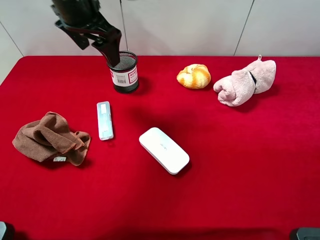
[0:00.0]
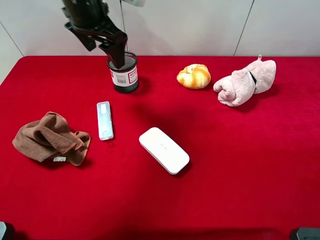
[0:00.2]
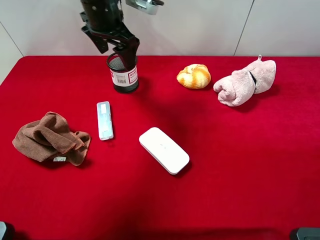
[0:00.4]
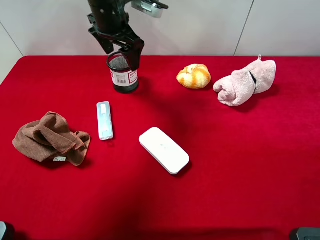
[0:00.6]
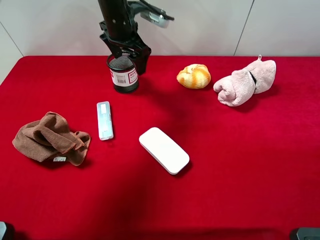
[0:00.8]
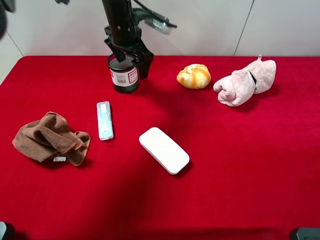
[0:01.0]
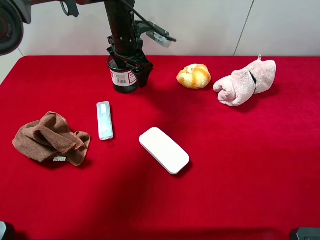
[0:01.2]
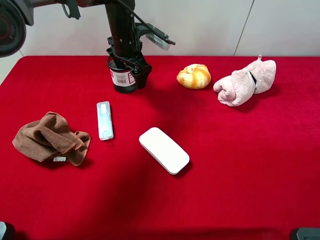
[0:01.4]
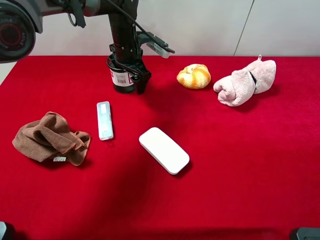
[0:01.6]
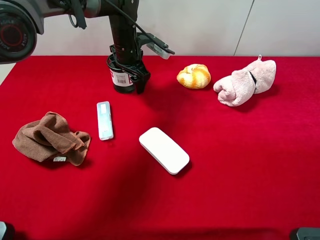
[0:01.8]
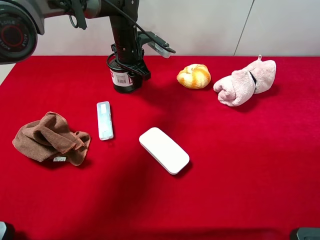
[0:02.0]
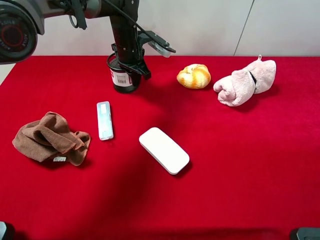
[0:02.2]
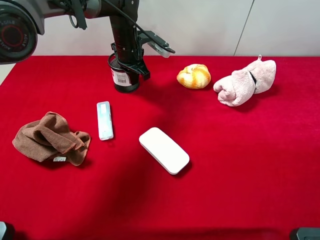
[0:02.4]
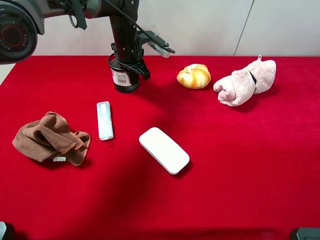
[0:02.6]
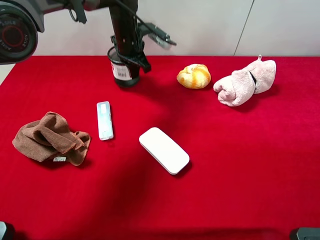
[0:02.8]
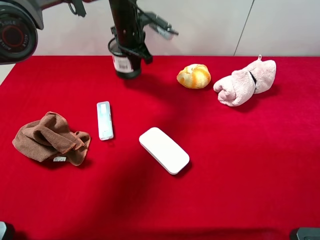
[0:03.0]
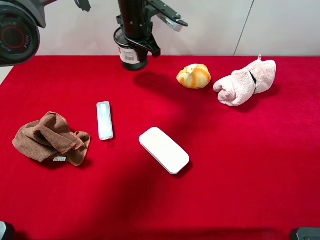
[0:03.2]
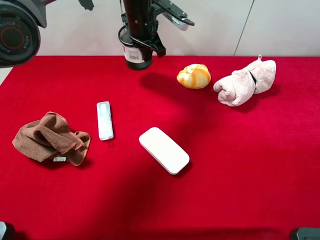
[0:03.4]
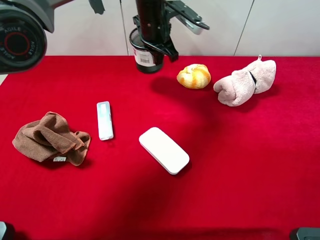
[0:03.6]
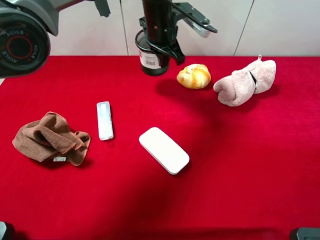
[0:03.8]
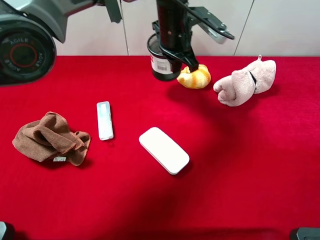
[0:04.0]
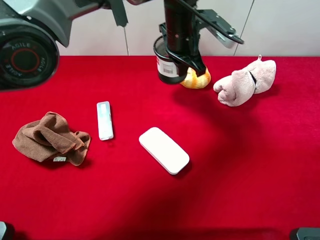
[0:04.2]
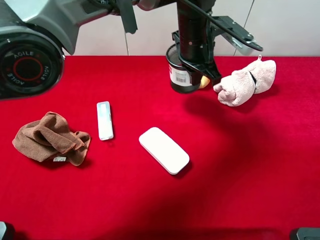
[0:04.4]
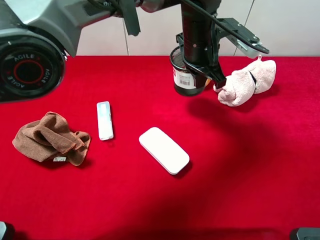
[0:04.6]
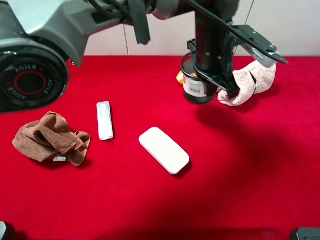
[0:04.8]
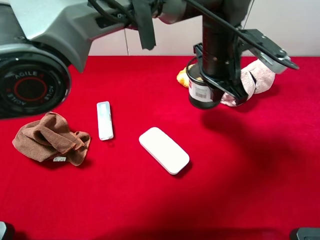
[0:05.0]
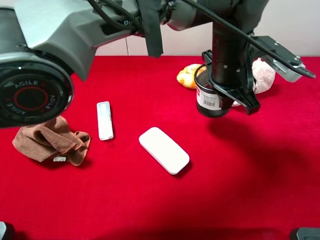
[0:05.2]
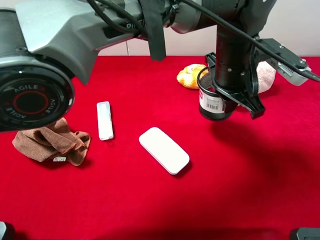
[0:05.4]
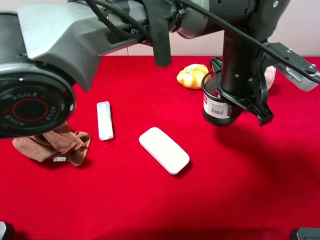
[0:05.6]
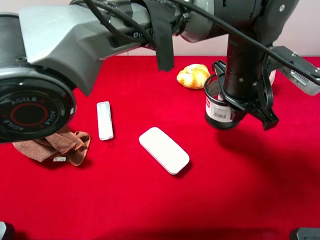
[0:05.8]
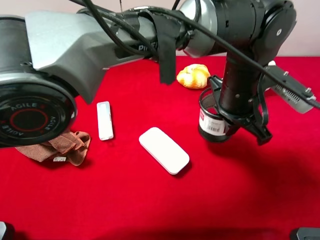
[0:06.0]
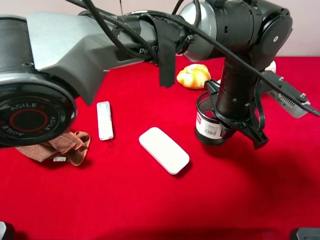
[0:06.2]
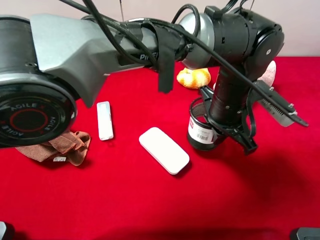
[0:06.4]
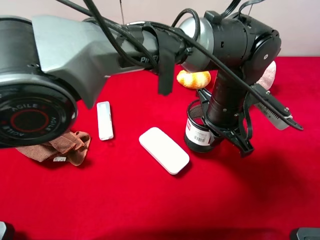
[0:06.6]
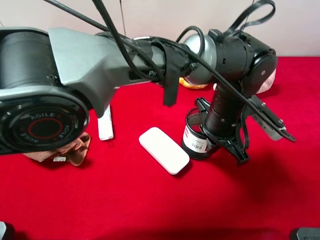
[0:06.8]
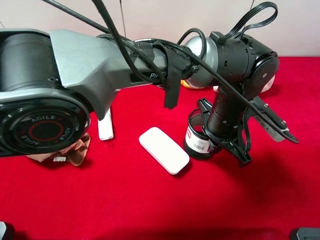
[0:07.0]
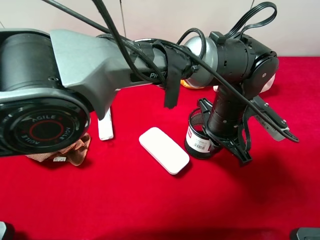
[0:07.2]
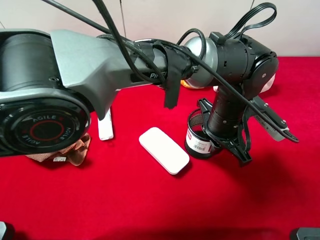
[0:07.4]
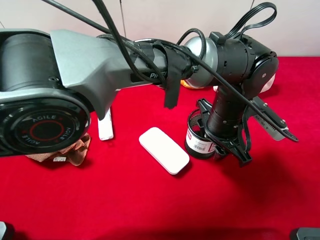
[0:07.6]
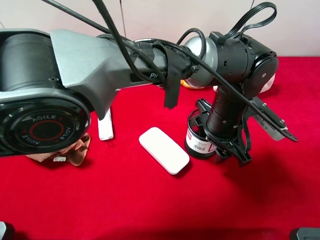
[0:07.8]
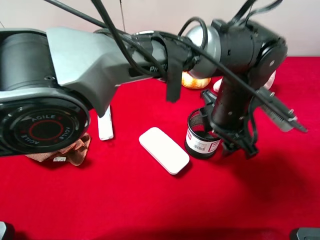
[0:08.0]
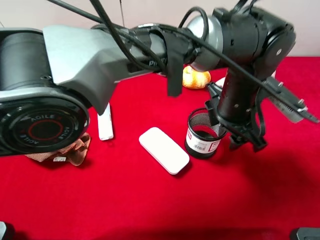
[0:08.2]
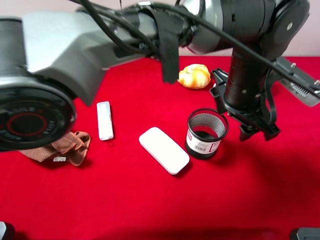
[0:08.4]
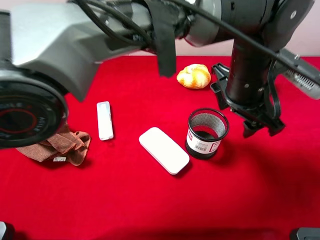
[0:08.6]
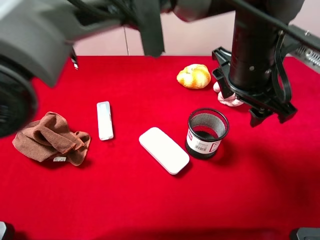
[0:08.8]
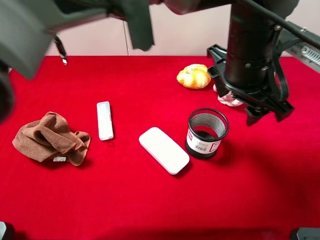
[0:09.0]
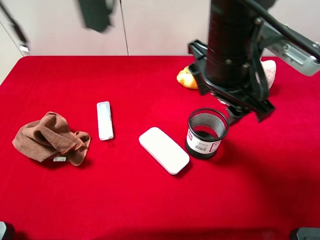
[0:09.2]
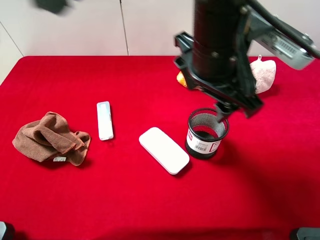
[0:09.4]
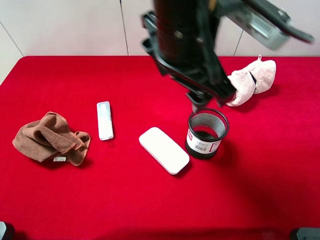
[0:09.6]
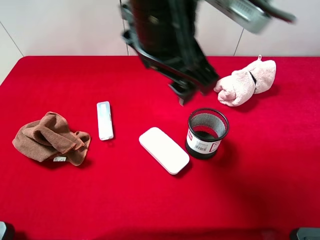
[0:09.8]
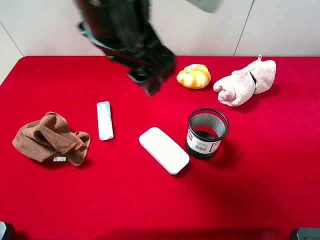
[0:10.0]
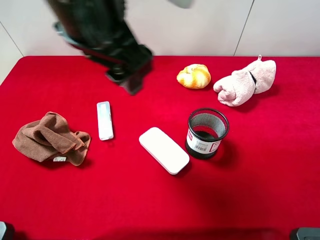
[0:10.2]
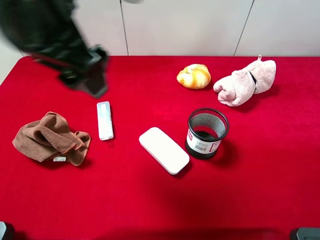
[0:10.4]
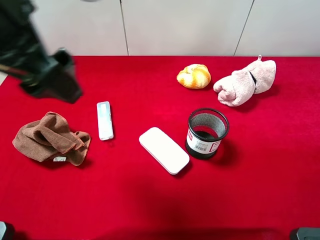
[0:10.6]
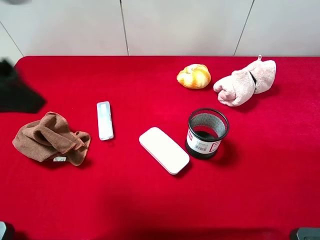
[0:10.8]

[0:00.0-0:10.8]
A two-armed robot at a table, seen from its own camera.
Task of the whole recording: the gripper move the object.
Step, 0:00.0 to 0:02.4: Grasp the pen container with the left gripper.
Step, 0:02.6 to 0:08.4: Place the pen container on the table with the left gripper.
0:00.0 to 0:01.6: The left gripper is displaced downward, forward and to the right by some 20 cm.
0:01.6 to 0:03.0: The left gripper changes place by approximately 5 cm, and closes up.
0:03.0 to 0:04.6: The left gripper travels to the right and backward by roughly 20 cm.
0:04.6 to 0:06.2: The left gripper heads backward and to the right, covering about 10 cm.
0:06.2 to 0:07.8: The left gripper opens up.
0:07.8 to 0:09.2: The left gripper is displaced upward by roughly 15 cm.
0:09.2 to 0:10.8: The left gripper moves to the left, about 30 cm.

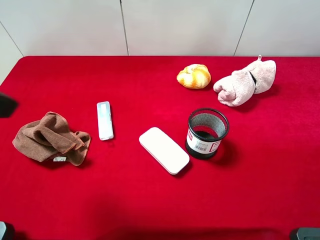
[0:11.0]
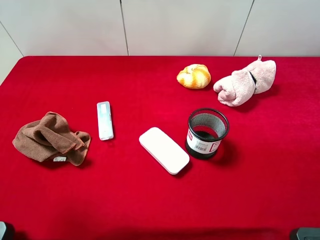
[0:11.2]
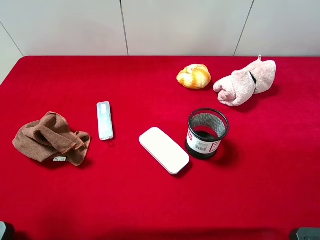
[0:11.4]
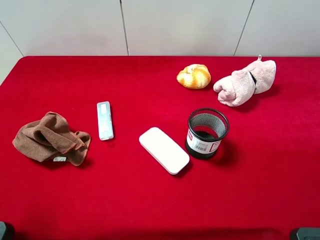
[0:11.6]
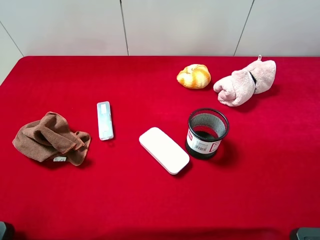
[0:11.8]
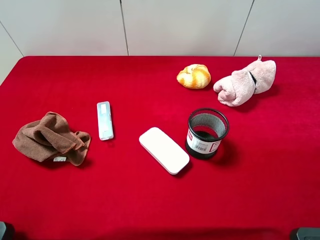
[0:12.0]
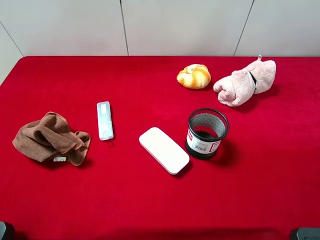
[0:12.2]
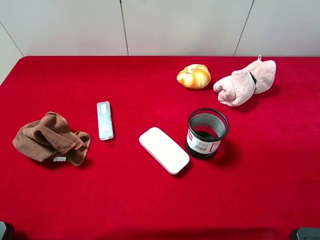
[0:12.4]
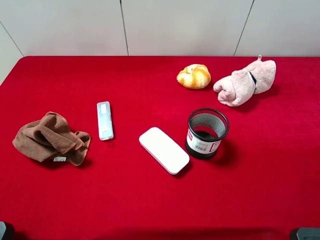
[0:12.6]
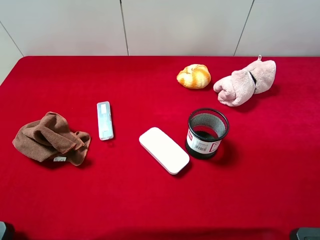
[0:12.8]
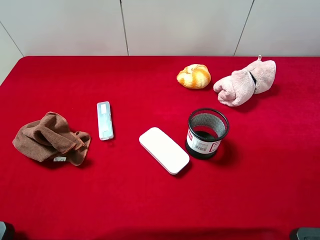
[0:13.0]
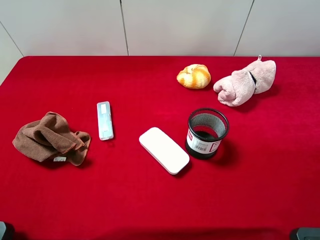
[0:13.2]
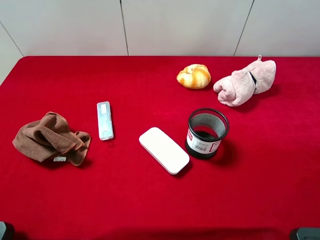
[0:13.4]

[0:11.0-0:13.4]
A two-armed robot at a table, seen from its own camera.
Task of the whole recording: the gripper move the object.
0:11.0 to 0:12.2: The left gripper heads backward, to the left and downward, covering roughly 15 cm.

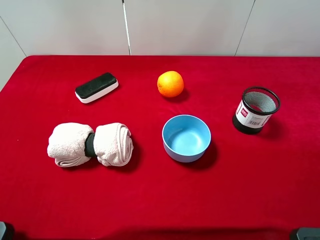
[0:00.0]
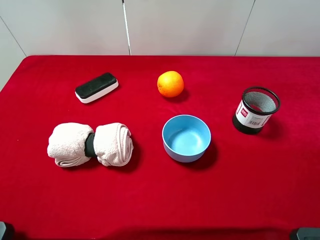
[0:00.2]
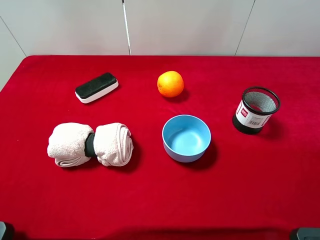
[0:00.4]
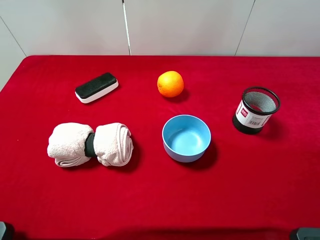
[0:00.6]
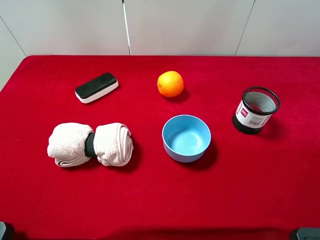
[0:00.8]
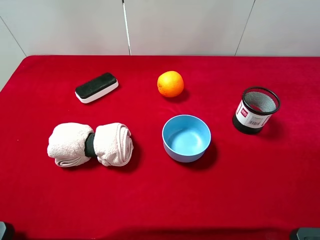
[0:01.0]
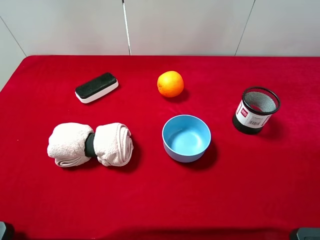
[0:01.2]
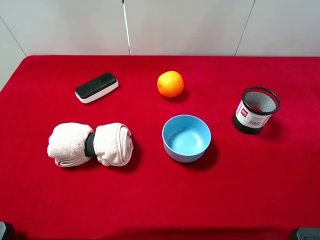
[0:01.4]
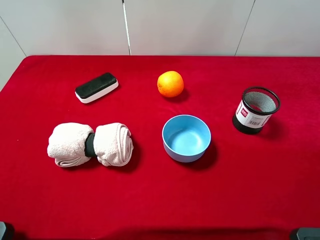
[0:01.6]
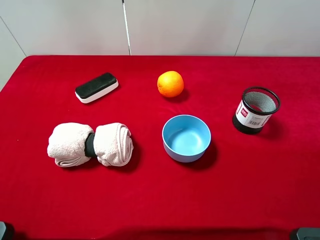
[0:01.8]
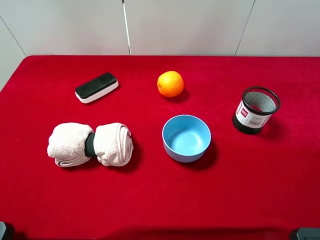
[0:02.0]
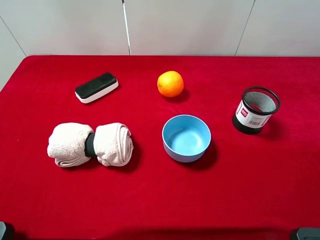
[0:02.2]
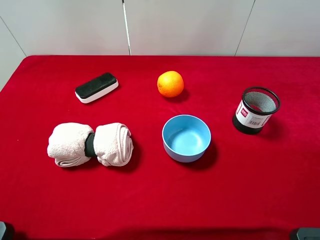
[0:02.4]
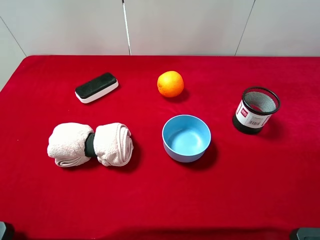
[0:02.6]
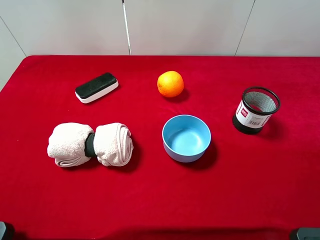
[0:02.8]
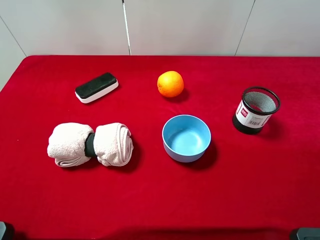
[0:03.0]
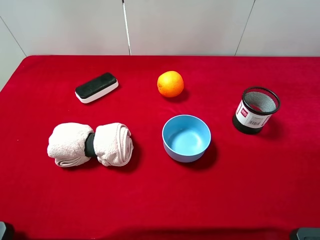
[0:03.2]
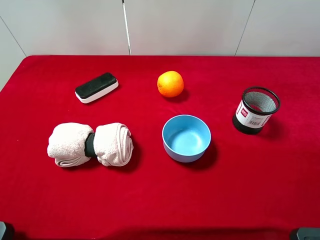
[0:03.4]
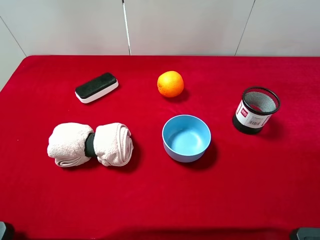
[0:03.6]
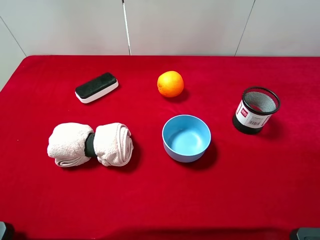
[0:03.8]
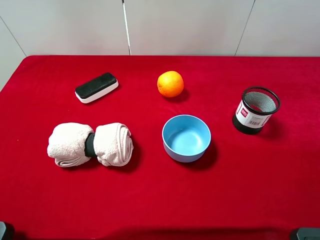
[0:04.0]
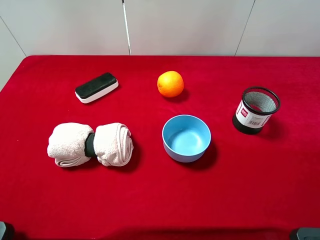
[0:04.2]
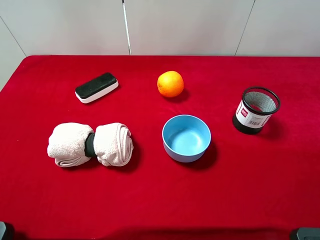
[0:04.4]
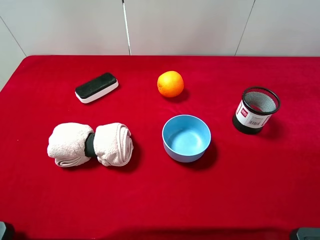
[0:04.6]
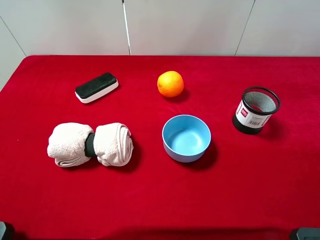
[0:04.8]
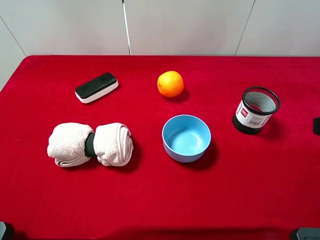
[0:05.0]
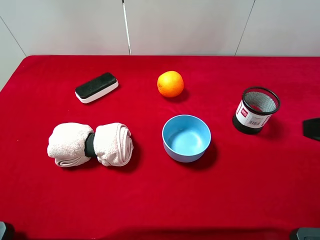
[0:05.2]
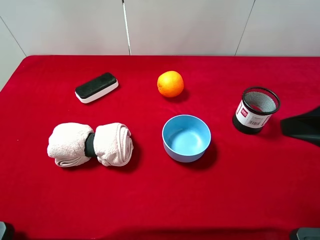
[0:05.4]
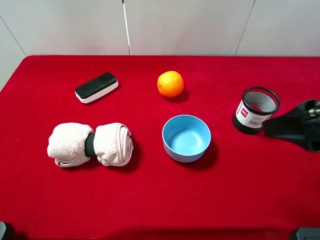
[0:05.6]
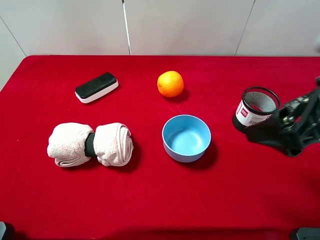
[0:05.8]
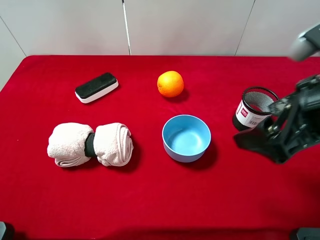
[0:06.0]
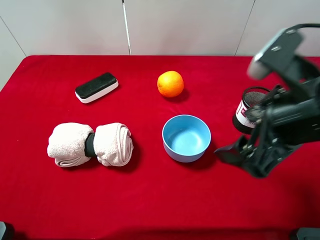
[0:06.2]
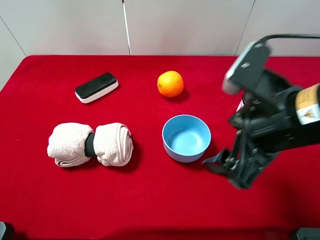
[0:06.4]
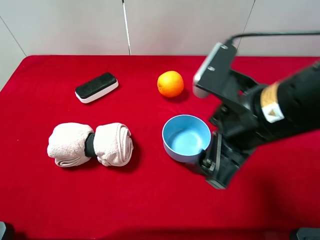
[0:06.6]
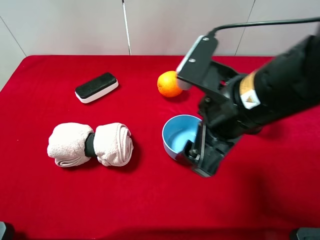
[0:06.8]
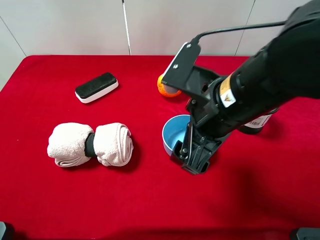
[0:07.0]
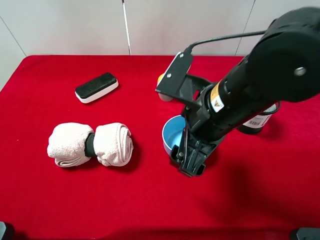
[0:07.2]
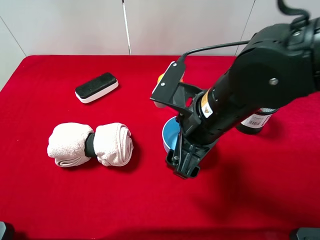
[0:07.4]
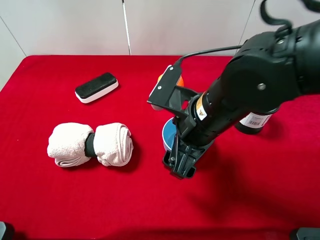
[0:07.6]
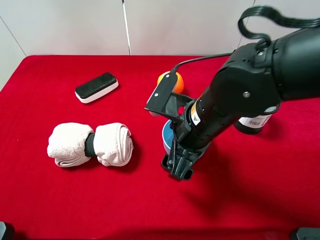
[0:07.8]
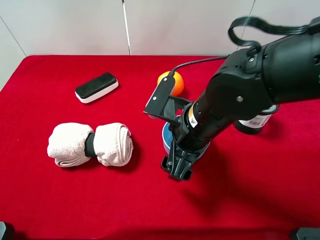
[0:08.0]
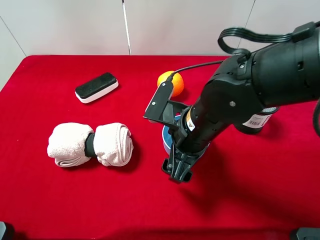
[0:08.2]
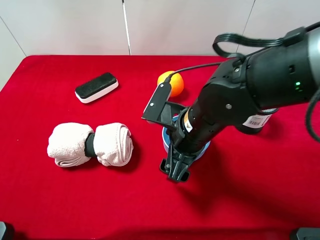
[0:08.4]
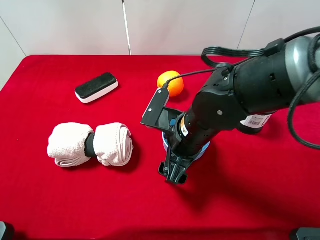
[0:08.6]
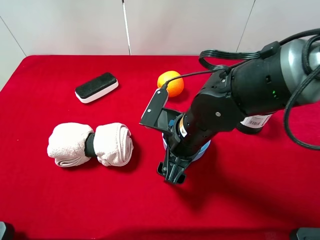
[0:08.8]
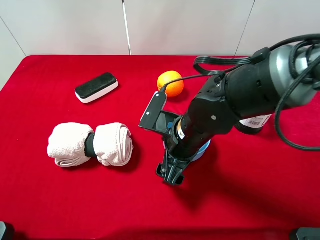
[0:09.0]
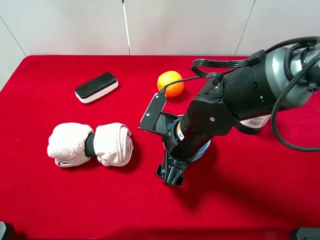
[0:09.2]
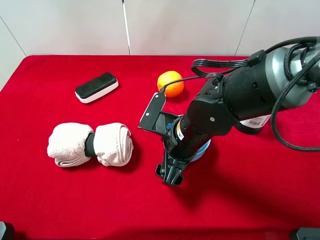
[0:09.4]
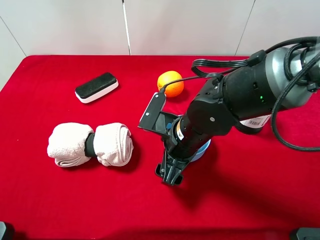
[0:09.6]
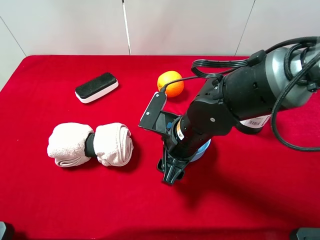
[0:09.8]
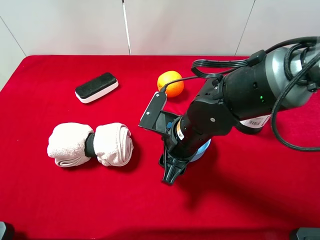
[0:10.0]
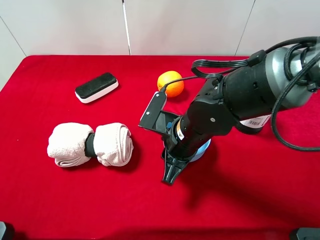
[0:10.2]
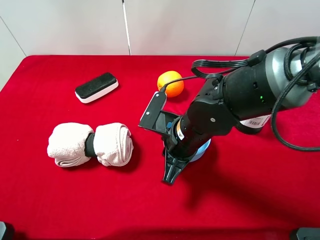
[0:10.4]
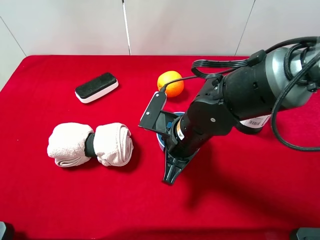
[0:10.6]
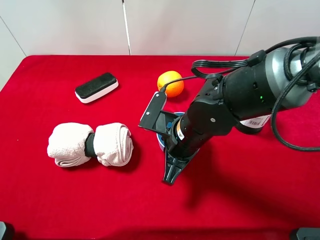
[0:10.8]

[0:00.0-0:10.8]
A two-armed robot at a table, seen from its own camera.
Task of the whole recording: the gripper move the object.
Step, 0:00.0 to 0:10.6: Grasp the blue bowl with the right gripper.
0:04.6 to 0:06.2: The right gripper is displaced to the left and forward by approximately 10 cm.
0:06.2 to 0:07.8: The right gripper is displaced to the left and downward by about 15 cm.
0:07.8 to 0:09.2: The right gripper is displaced downward by some 5 cm.
0:09.2 to 0:10.8: The right gripper closes up.
